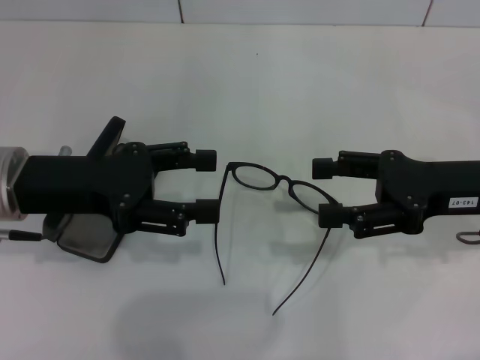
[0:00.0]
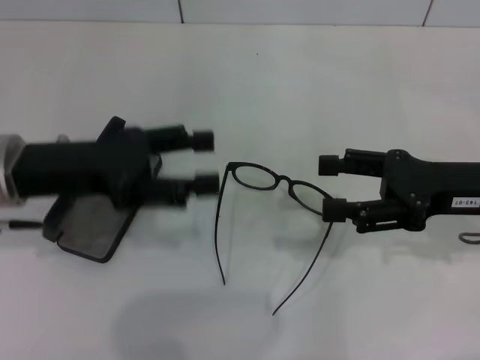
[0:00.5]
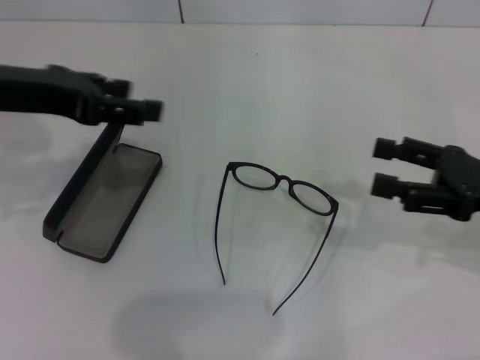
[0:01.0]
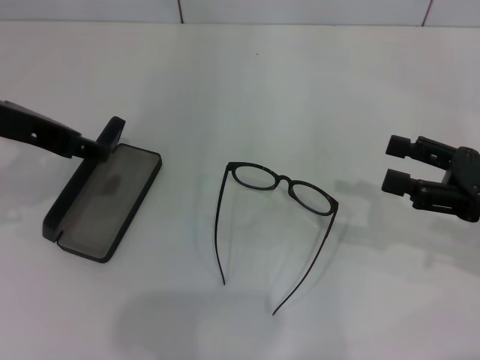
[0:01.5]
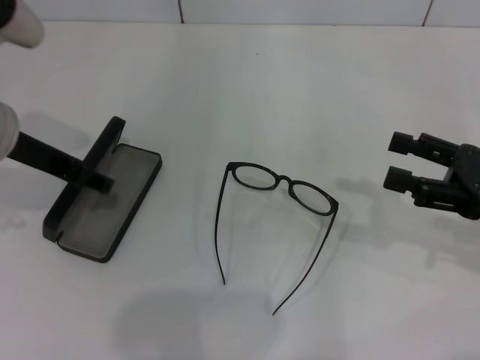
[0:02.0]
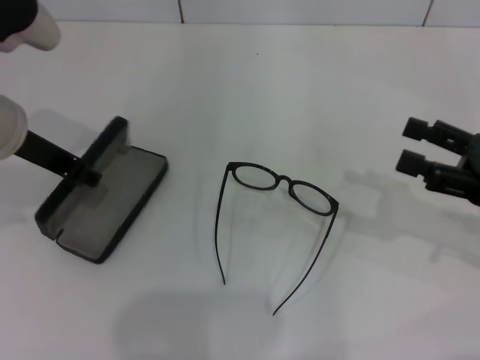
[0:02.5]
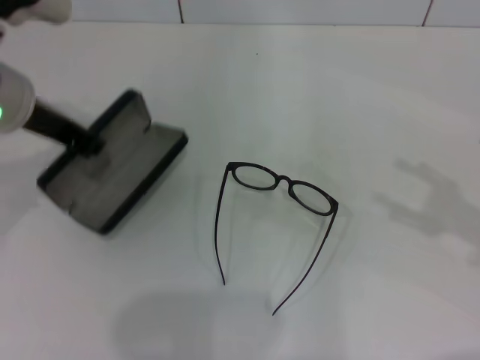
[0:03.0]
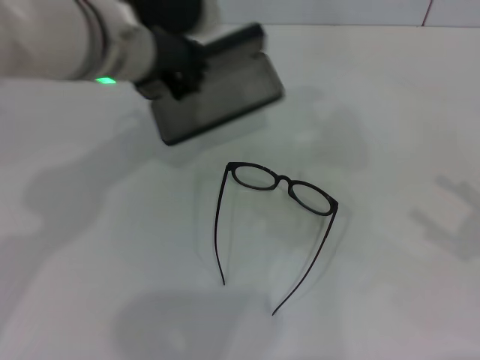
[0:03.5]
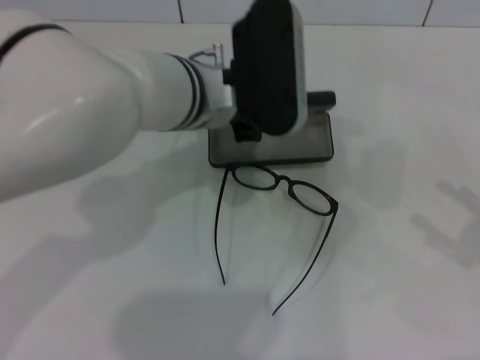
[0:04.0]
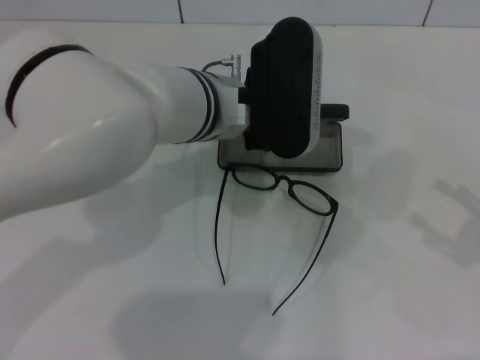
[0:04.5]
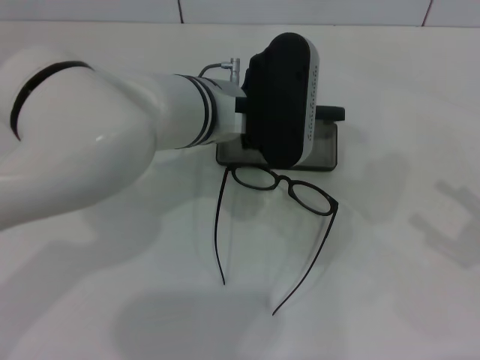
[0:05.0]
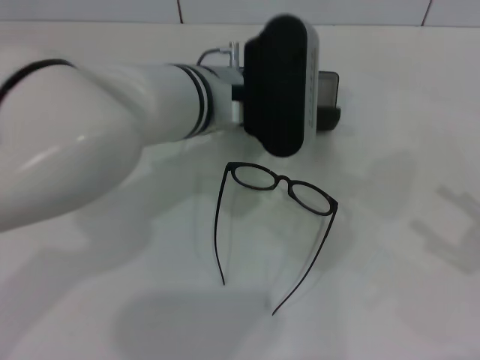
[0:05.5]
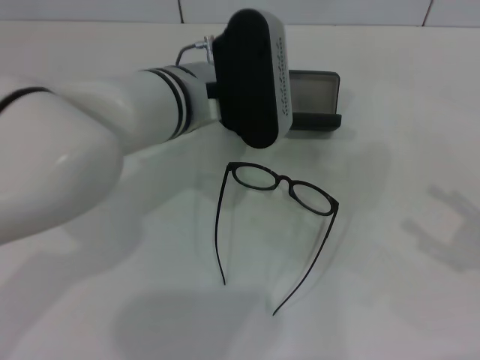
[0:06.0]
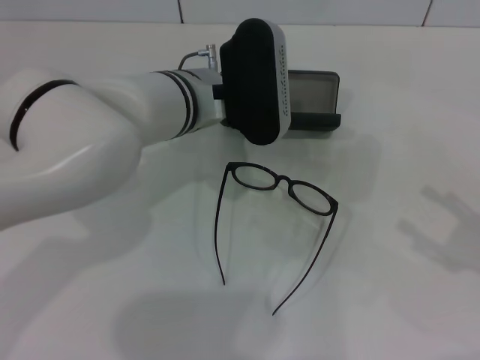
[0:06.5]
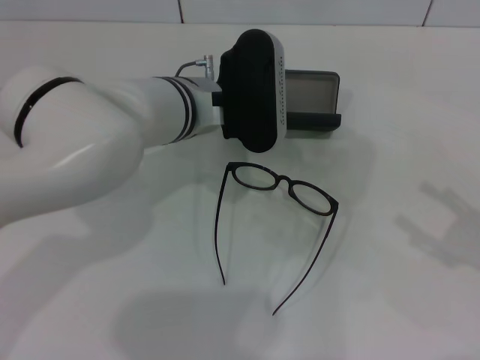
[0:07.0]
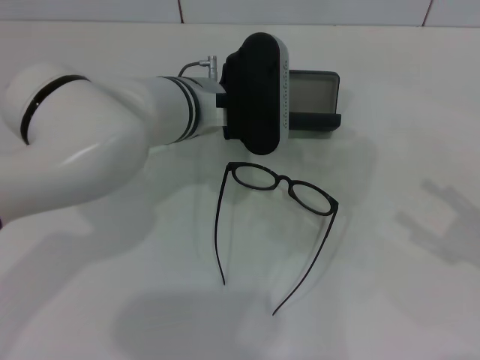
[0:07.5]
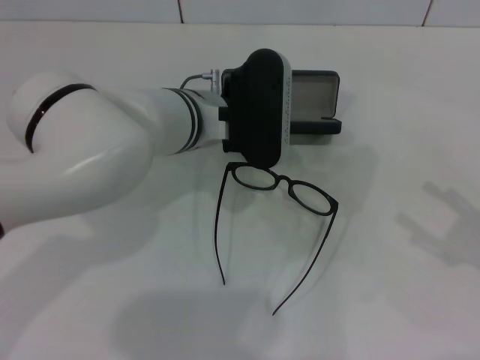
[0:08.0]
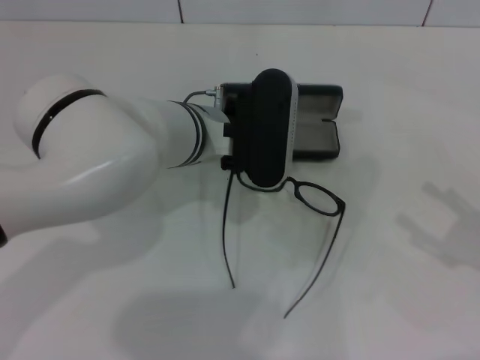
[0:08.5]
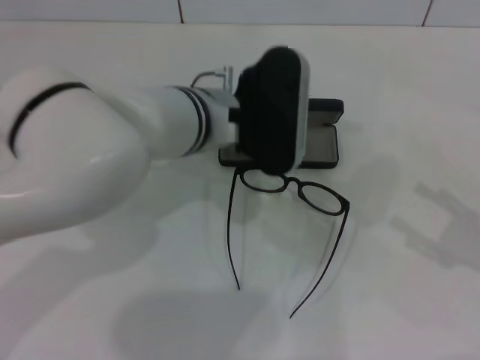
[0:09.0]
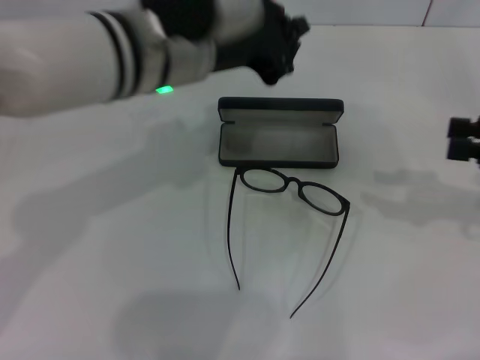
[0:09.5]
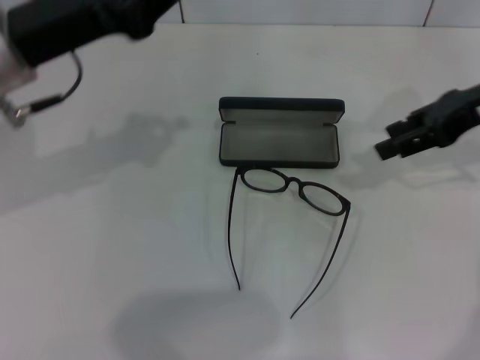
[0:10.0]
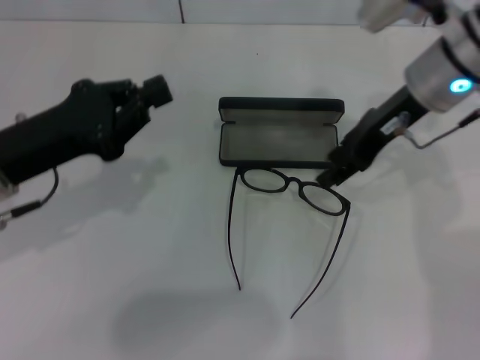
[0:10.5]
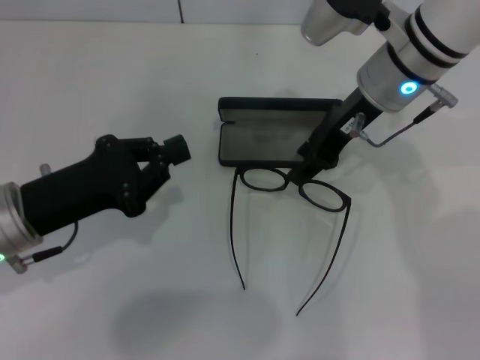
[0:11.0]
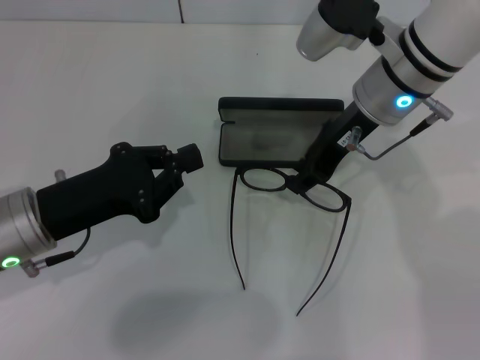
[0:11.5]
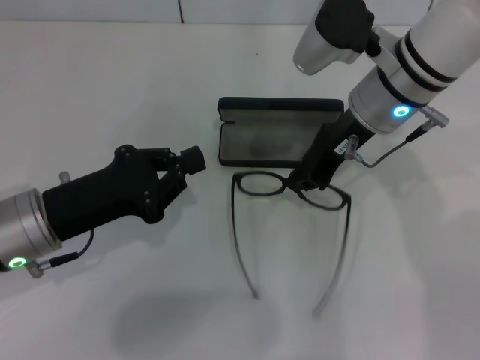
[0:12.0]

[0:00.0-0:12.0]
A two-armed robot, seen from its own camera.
Step, 0:00.0 to 0:02.5: Grab the glasses case with your left hand.
Step, 0:03.0 to 0:05.5: Place the glasses case in the center of the table with your left hand.
0:00.0 to 0:02.0: The right gripper is displaced to the right by roughly 5 cm.
0:02.0 to 0:04.0: The left gripper goes roughly 15 cm to the right, and closes its fingers; the right gripper shifts some 10 cm backward and to the right.
0:04.0 to 0:06.0: There are only small adjustments of the grippers.
0:06.0 to 0:08.0: The left gripper closes its fingers.
0:08.0 to 0:10.0: The left gripper is displaced to the left and upward by roughly 20 cm, while the right gripper heads forward, upward and to the left, covering some 25 cm, and closes its fingers.
0:10.0 to 0:12.0: The left gripper travels downward and backward by approximately 15 cm. Meanwhile the right gripper goes about 15 cm to the left, and closes its fingers.

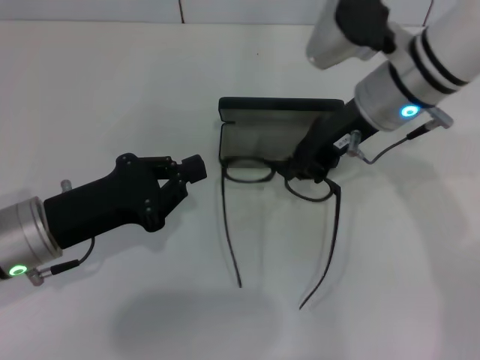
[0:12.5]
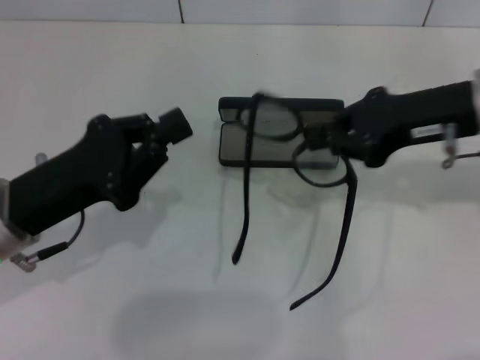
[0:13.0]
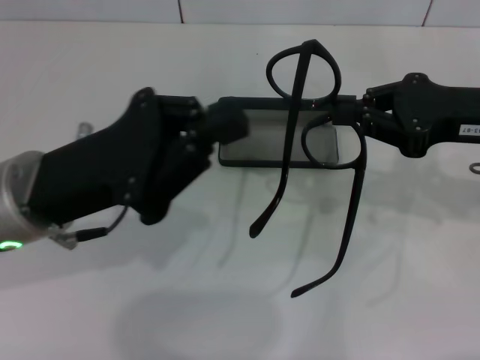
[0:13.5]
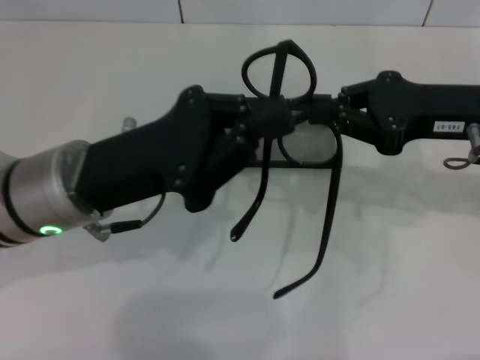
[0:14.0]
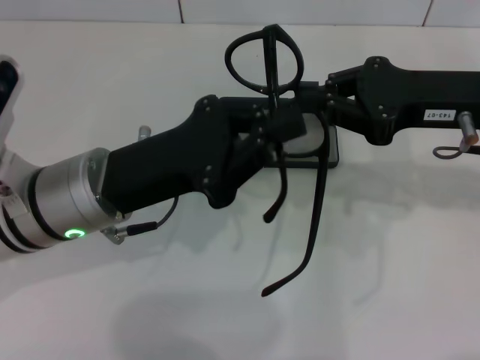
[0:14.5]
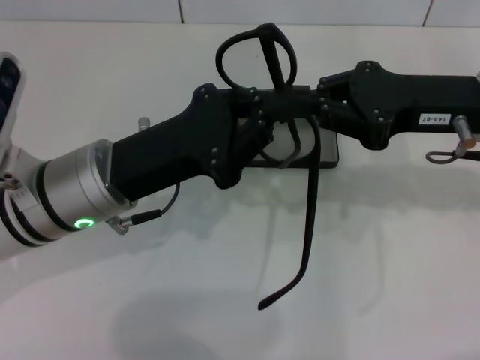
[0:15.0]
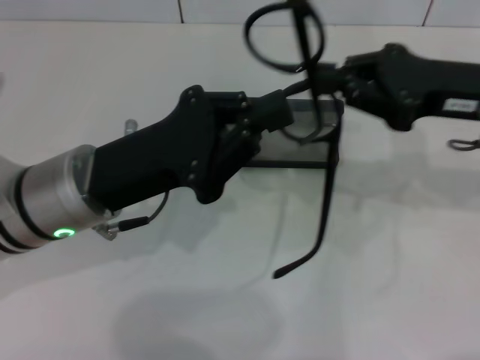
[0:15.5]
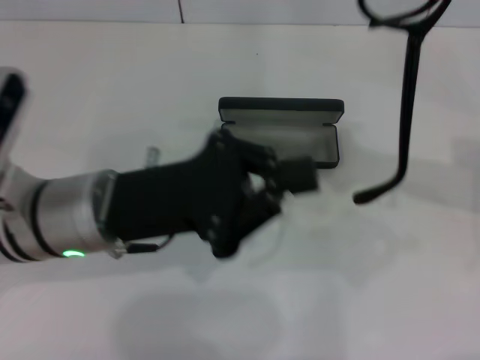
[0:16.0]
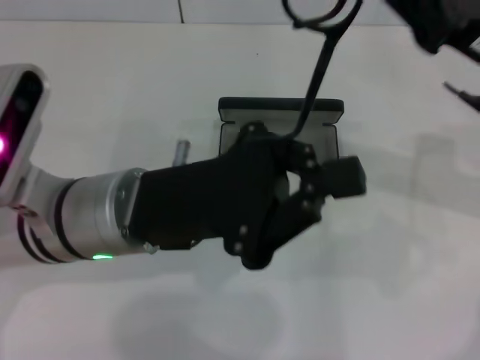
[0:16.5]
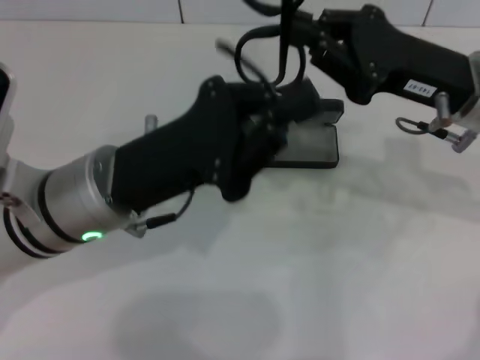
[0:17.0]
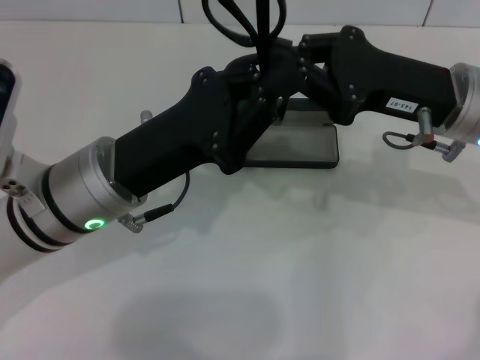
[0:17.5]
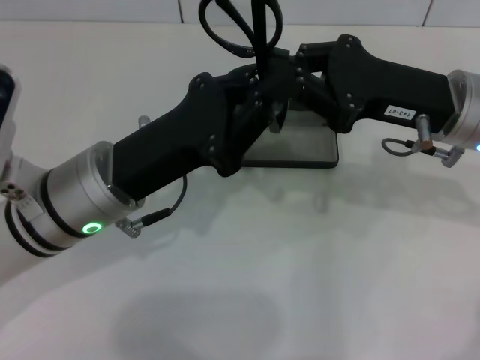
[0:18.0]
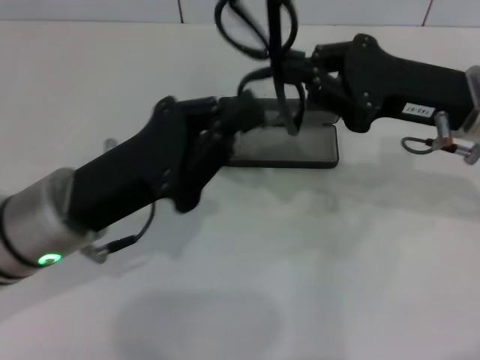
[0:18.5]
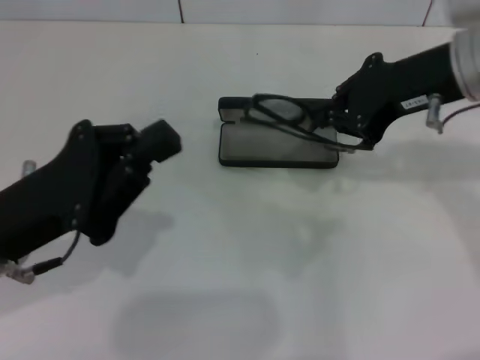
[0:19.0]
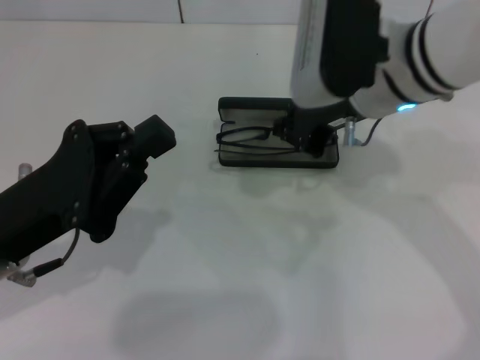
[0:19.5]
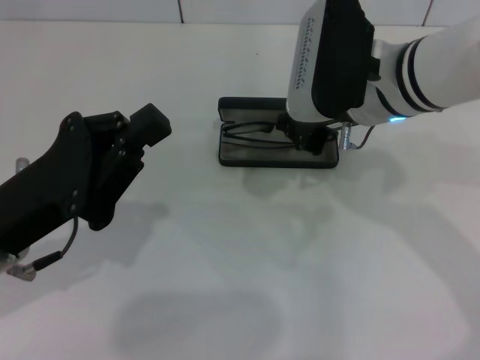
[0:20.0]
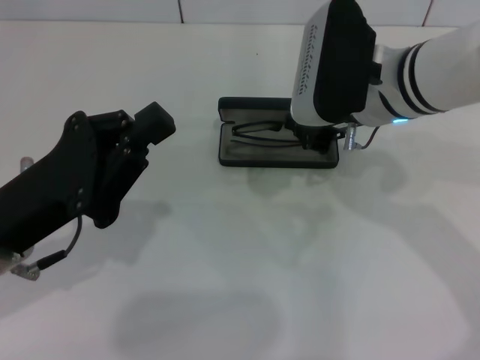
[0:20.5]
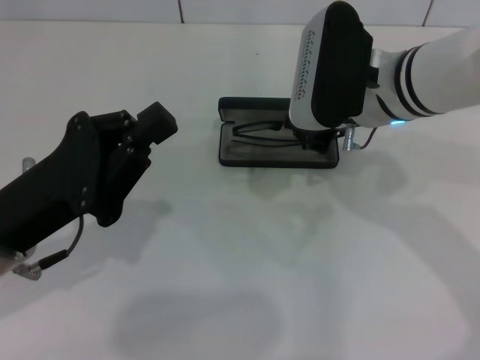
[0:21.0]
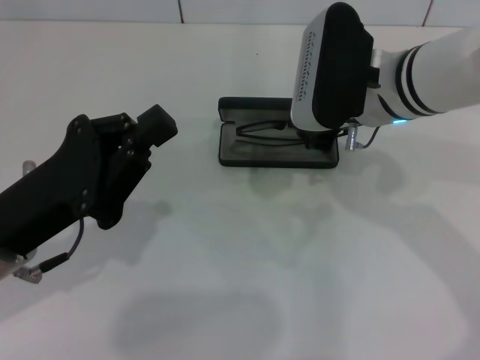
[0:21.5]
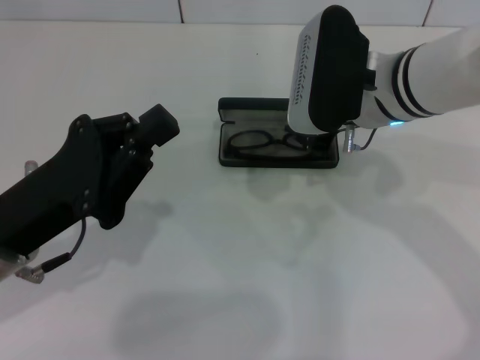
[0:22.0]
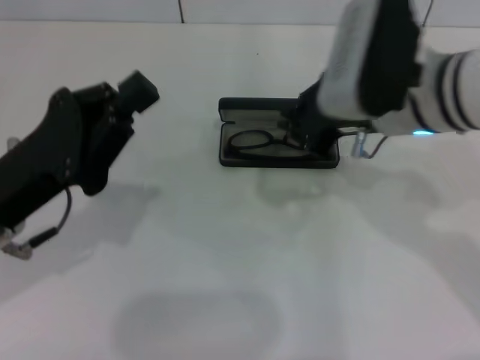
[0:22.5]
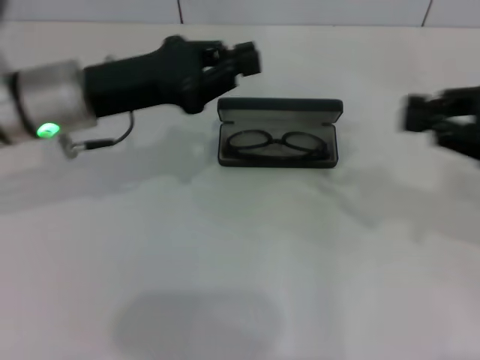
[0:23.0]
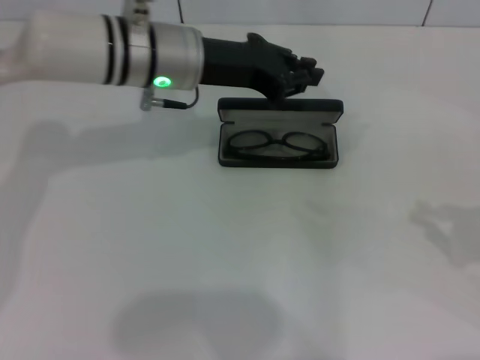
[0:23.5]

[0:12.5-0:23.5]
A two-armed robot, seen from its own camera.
Step, 0:12.5 to 0:17.5: Fold the frame with your left hand.
Step, 0:18.0 to 0:22.0: Put the glasses into the case with your right hand.
0:12.5 to 0:14.5: The left gripper heads to the right, covering approximately 5 cm, while the right gripper moves to the right and backward, approximately 10 cm.
0:14.5 to 0:16.0: The right gripper goes approximately 5 cm to the right.
0:16.0 to 0:18.0: The right gripper goes roughly 10 cm to the left and downward.
0:18.0 to 0:20.0: The two grippers go roughly 10 cm to the left.
0:20.0 to 0:21.5: The grippers make only small movements.
0:21.5 to 0:23.5: The left gripper is displaced forward and to the right by about 20 cm. The right gripper heads to the right and backward, covering approximately 30 cm.

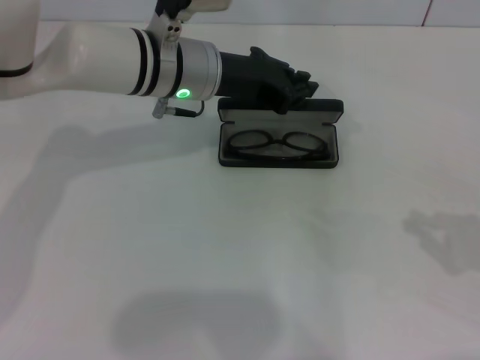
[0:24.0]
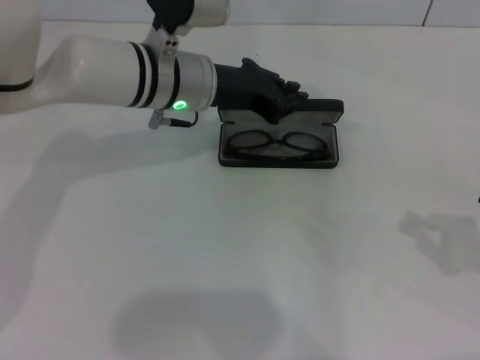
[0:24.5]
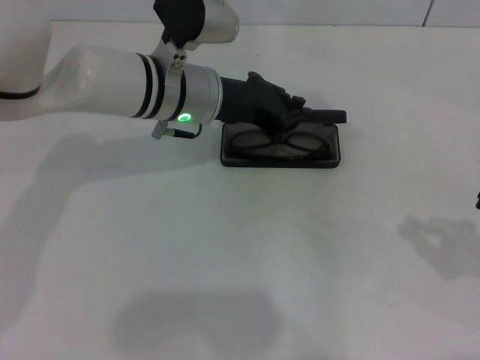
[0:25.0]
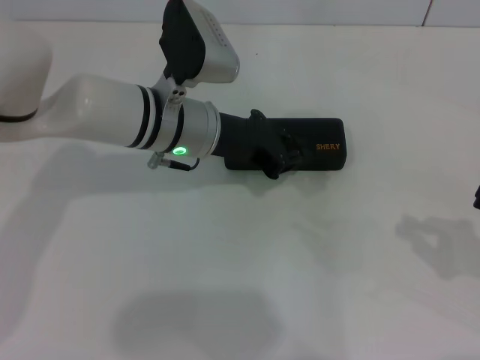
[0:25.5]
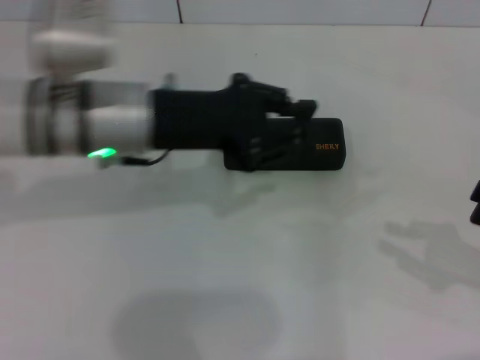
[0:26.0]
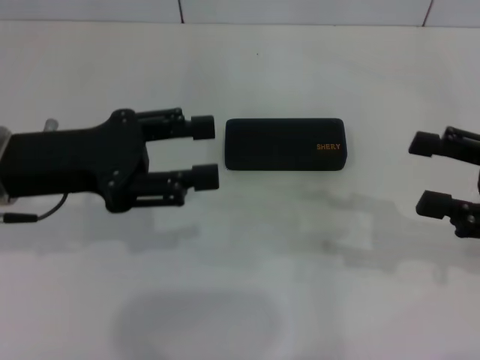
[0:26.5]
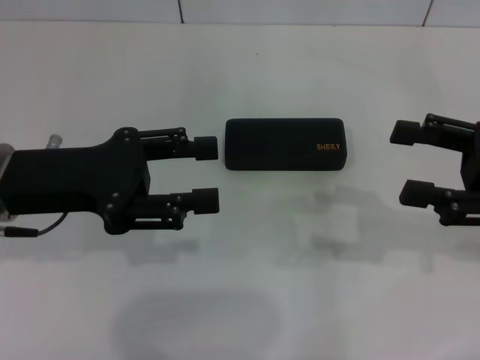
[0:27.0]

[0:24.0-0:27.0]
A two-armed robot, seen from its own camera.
0:24.0 to 0:25.5: The grippers stay close to where they were, moving slightly.
0:25.5 to 0:27.0: The left gripper shifts some 20 cm to the left and backward, and opens up, while the right gripper is displaced to the left and forward by roughly 10 cm, and opens.
